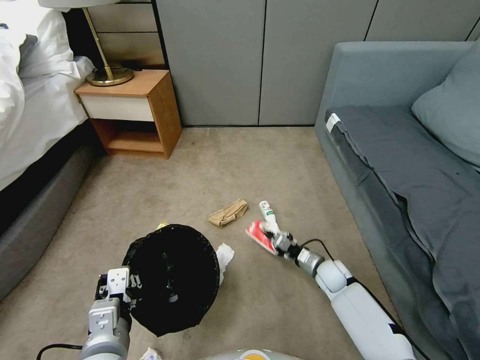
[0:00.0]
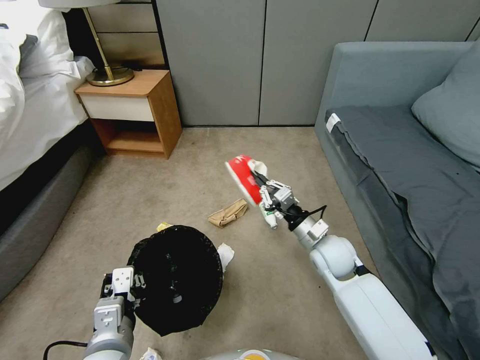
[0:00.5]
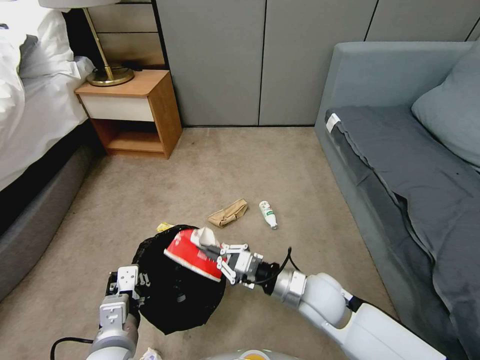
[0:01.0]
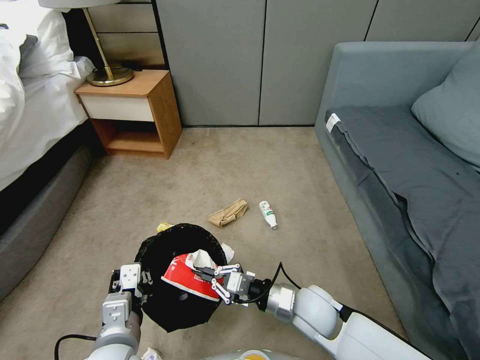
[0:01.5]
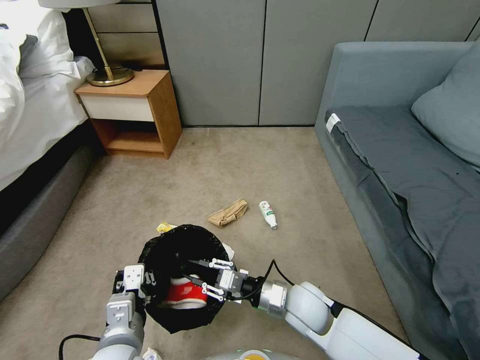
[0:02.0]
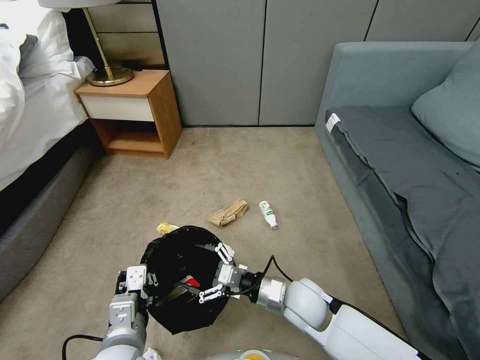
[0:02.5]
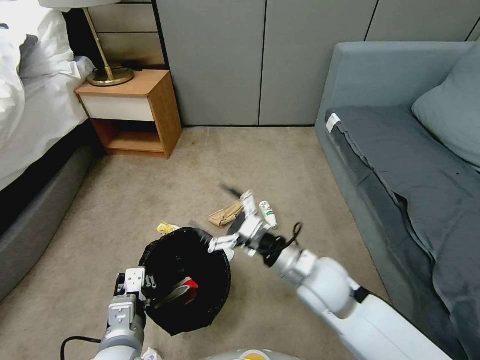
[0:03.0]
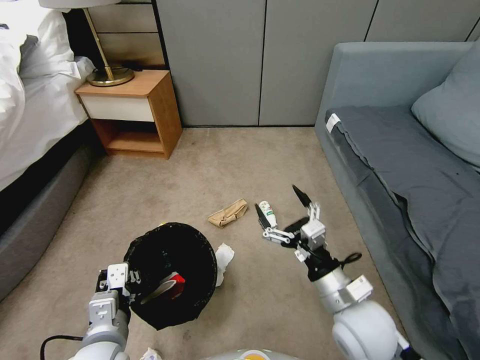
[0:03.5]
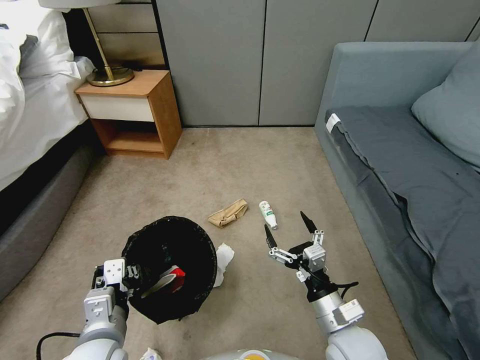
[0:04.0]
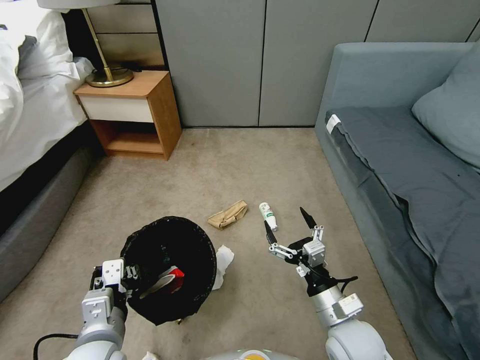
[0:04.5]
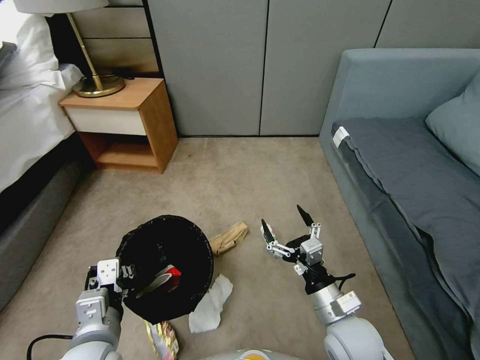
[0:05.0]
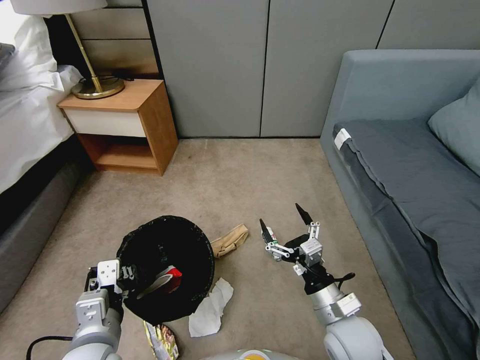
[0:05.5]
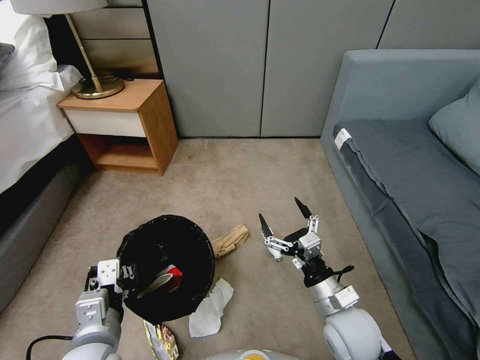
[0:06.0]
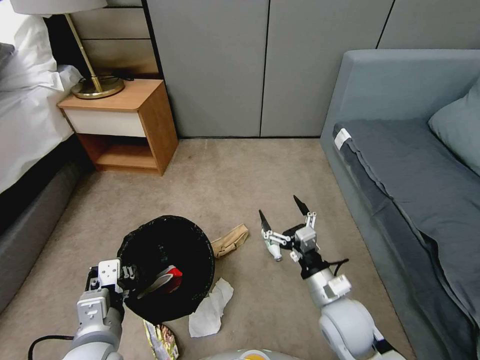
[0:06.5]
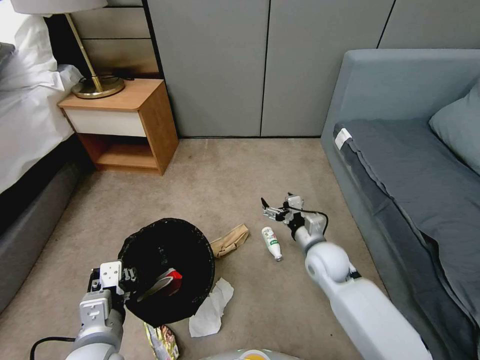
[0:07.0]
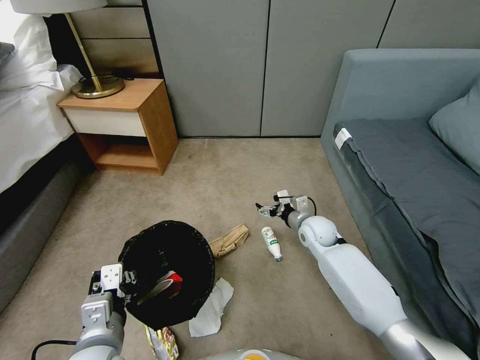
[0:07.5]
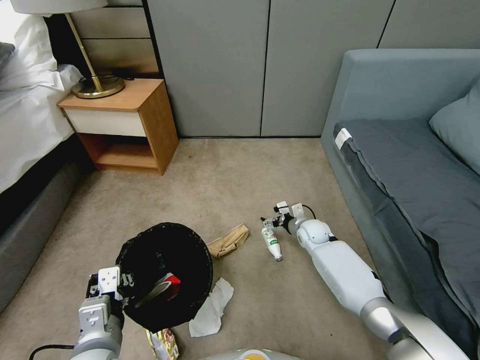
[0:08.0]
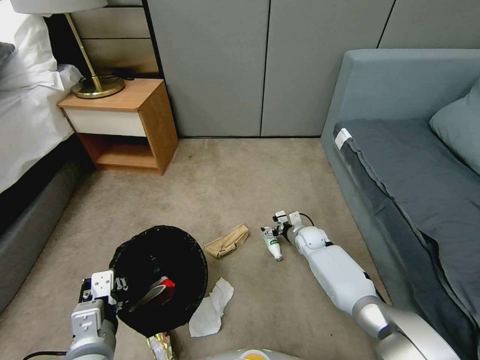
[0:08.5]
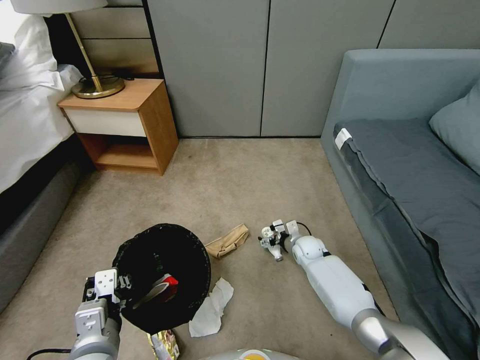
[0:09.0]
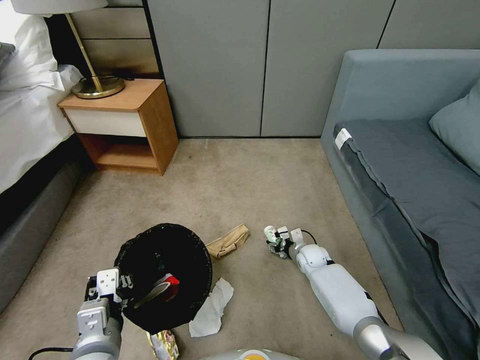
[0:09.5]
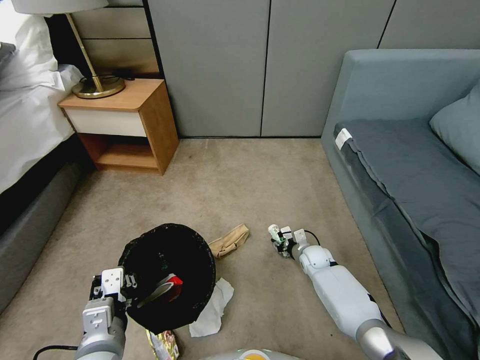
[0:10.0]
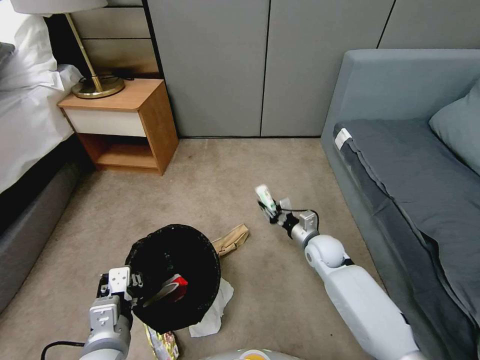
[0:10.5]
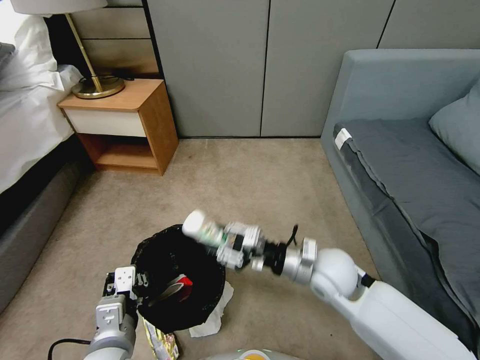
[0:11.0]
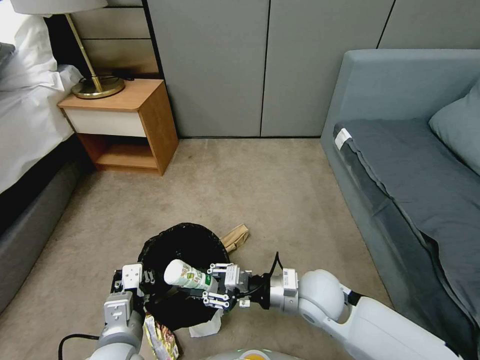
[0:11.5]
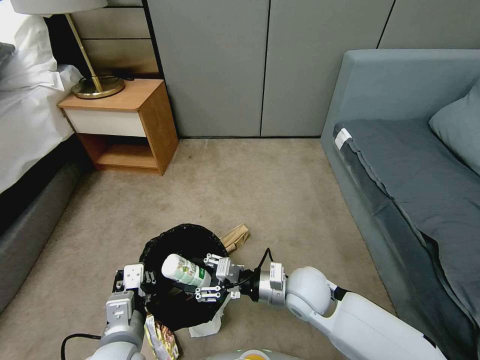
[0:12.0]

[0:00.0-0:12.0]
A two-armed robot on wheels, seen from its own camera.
Task of the whole recording: Pick up the trash bin, then pick up the garbage from the floor and place it into the trash bin.
0:00.0 to 0:02.0: The right gripper heads to the left, backward and upward, covering approximately 20 cm.
0:02.0 to 0:04.0: The right gripper moves backward and to the right, roughly 10 cm, reaches approximately 10 cm upward, then returns, and opens.
0:06.0 to 0:08.0: The right gripper is displaced forward and downward by about 30 cm.
0:08.0 to 0:10.0: The right gripper shifts some 10 cm downward and backward, and closes its fingers.
0:10.0 to 0:12.0: The right gripper heads upward, backward and to the left, covering about 25 cm.

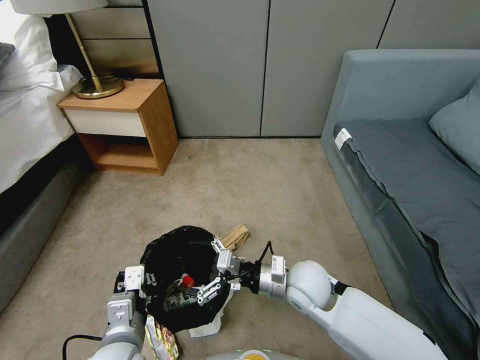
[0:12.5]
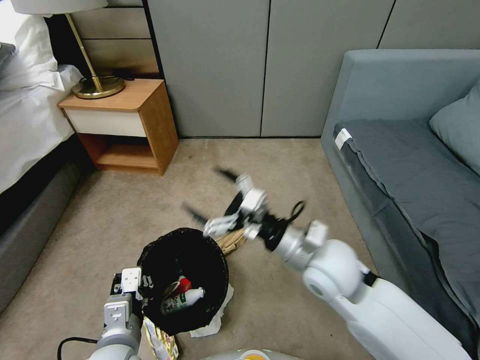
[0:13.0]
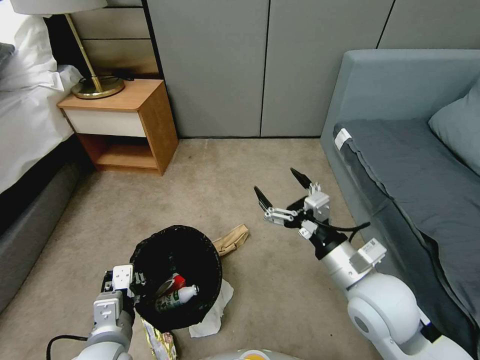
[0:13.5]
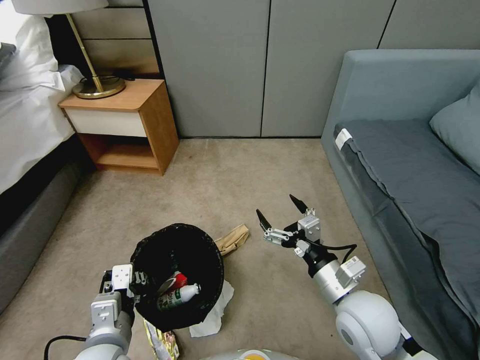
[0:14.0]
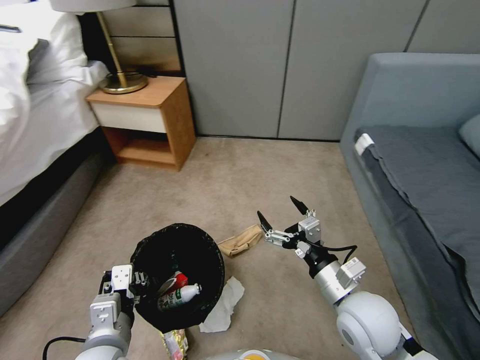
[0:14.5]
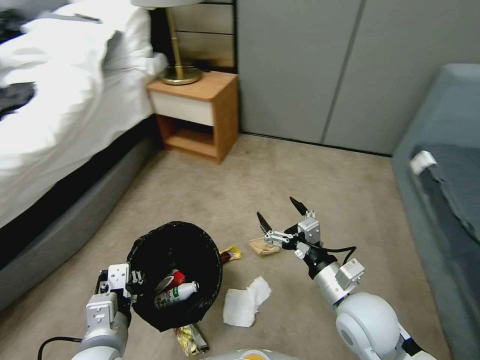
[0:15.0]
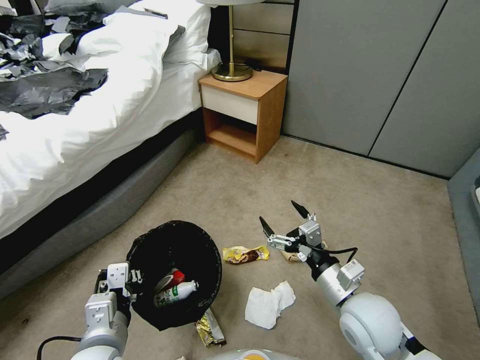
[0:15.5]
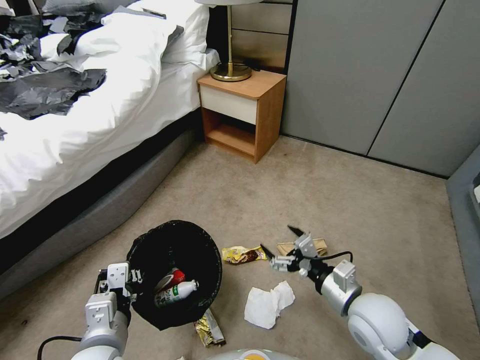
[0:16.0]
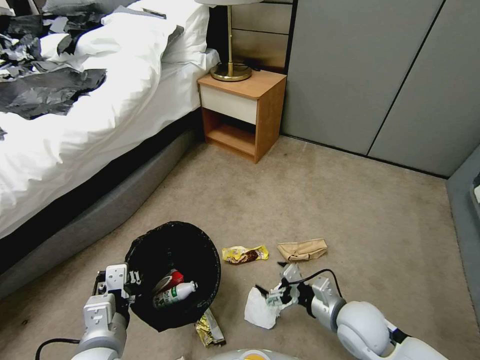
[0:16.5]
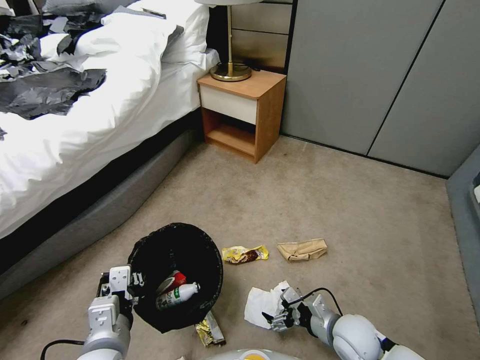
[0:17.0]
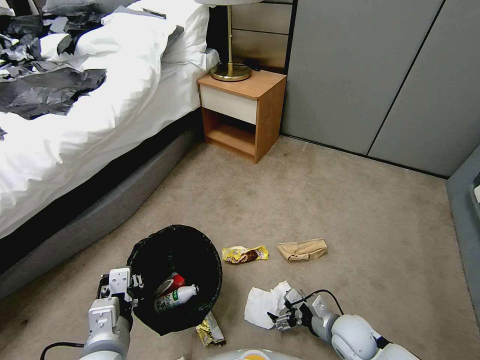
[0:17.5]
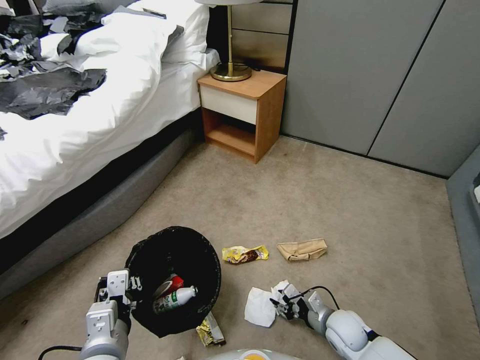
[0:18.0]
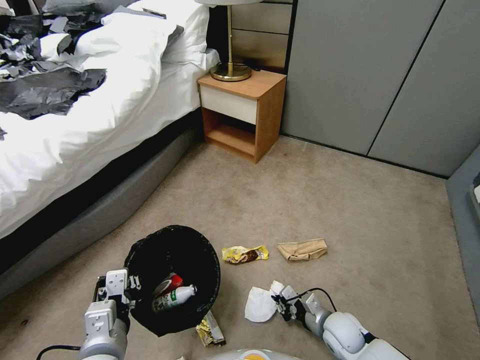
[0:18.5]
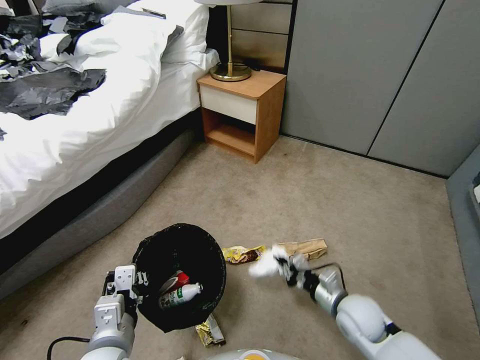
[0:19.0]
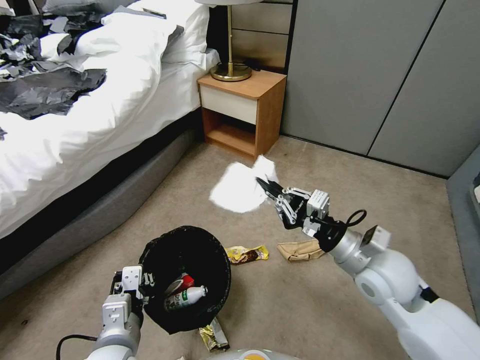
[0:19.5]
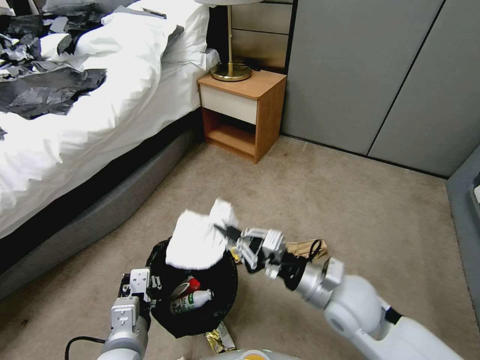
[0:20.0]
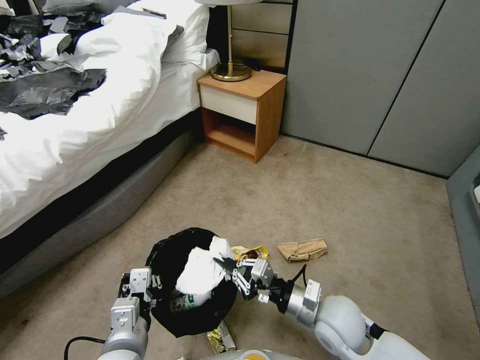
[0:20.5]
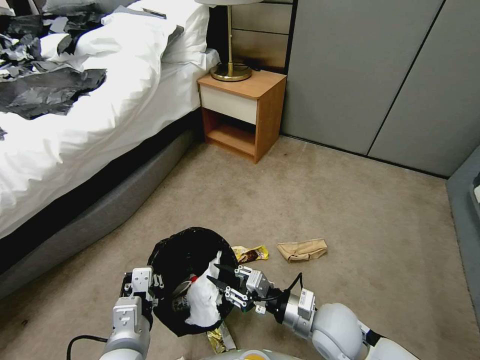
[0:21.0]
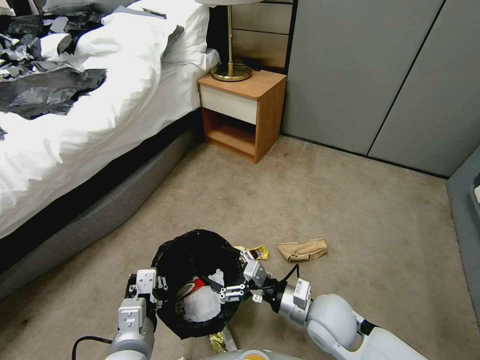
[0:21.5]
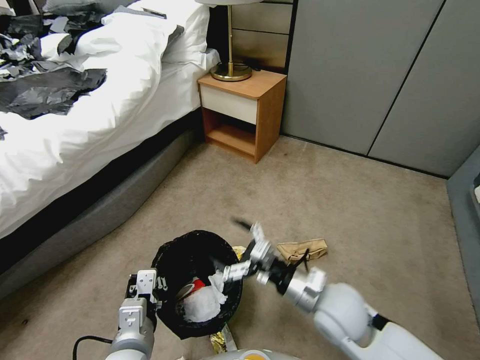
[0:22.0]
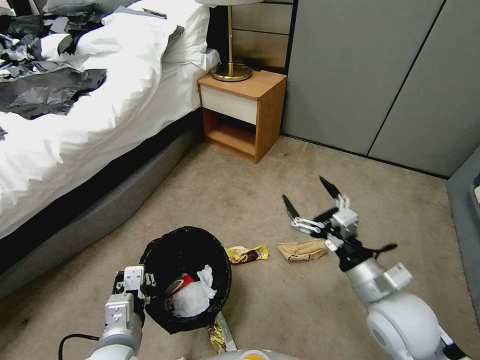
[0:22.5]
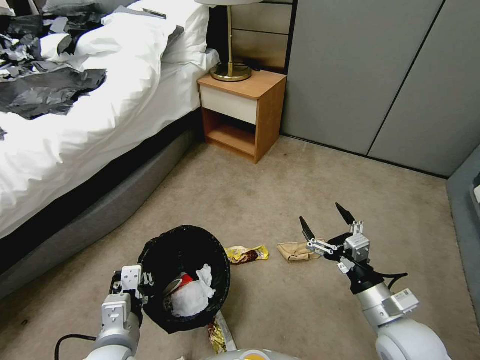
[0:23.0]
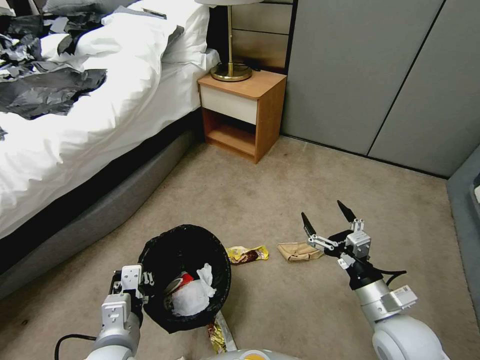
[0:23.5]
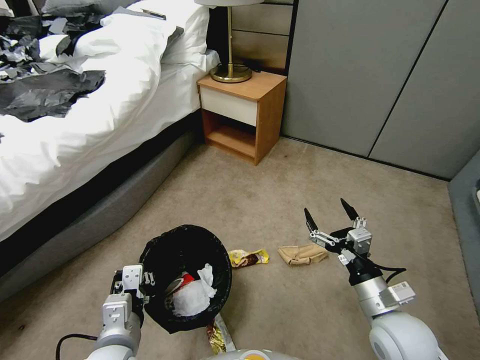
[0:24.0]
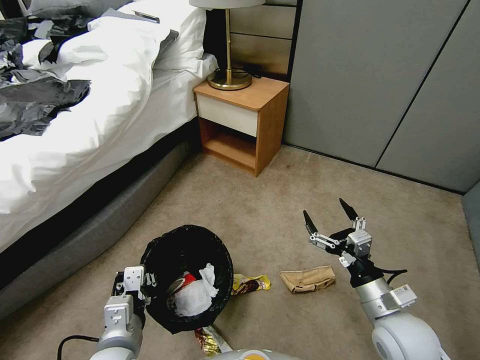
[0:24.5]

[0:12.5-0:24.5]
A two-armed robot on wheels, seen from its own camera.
Task of the whole recording: Pick up the trash bin, then pick up the garbage from the floor and place it into the trash bin.
0:12.5 to 0:14.5: The right gripper moves to the right and backward, roughly 10 cm.
0:14.5 to 0:16.5: The right gripper shifts approximately 10 cm downward.
0:16.5 to 0:18.5: The right gripper heads downward, covering about 15 cm, and closes its fingers.
0:18.5 to 0:20.5: The right gripper goes about 15 cm upward.
0:20.5 to 0:22.5: The right gripper moves upward and to the right, roughly 10 cm, and opens.
0:22.5 to 0:24.5: The right gripper heads downward, covering approximately 5 cm.

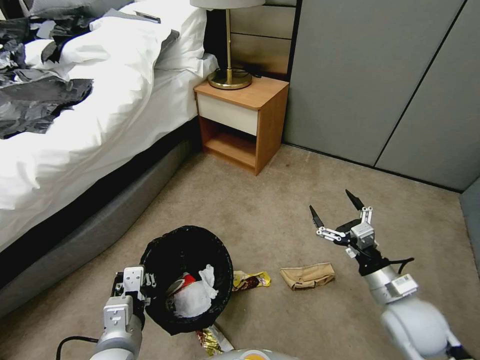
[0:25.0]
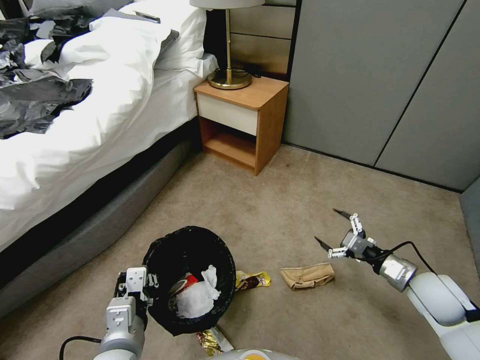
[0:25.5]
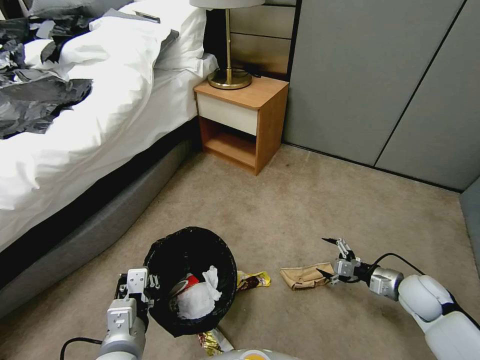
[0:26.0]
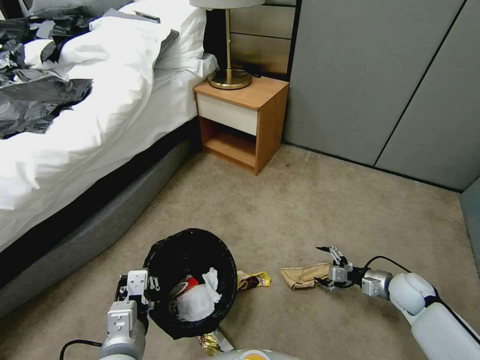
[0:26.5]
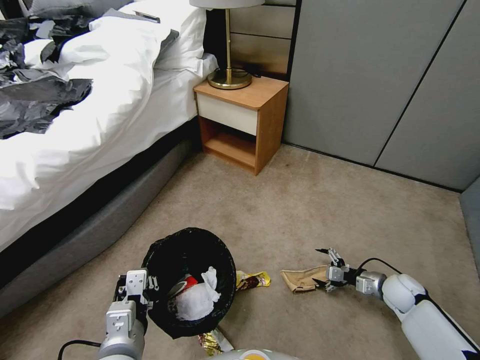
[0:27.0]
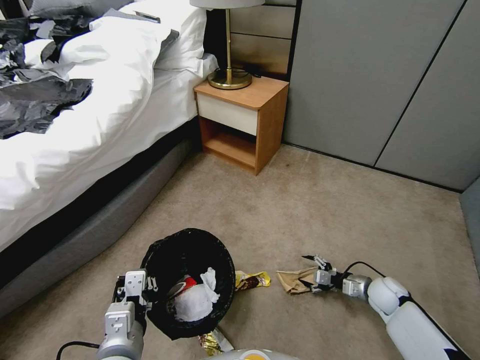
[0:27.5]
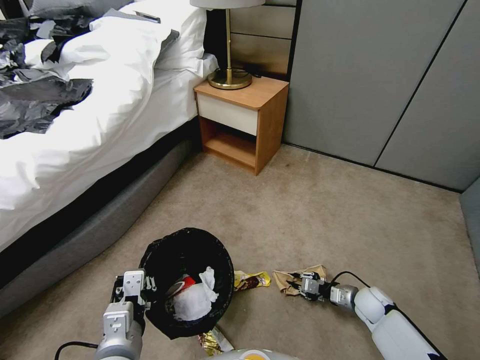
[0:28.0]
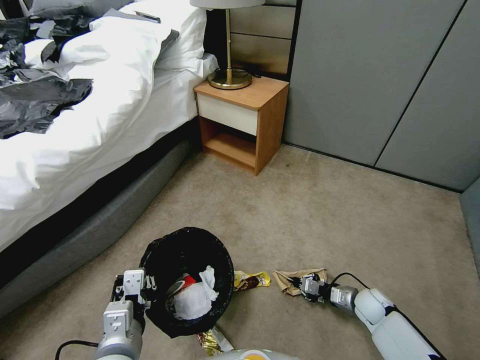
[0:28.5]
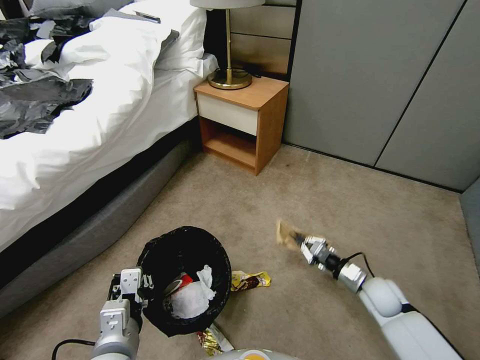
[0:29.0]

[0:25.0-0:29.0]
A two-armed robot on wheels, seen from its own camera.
Task of the whole recording: Pick up the trash bin, then pick up the garbage from the floor and place it into the trash bin.
0:25.0 to 0:27.0: The right gripper travels downward, to the right and forward by about 20 cm.
0:27.0 to 0:29.0: The right gripper travels to the left by approximately 10 cm, and closes up.
